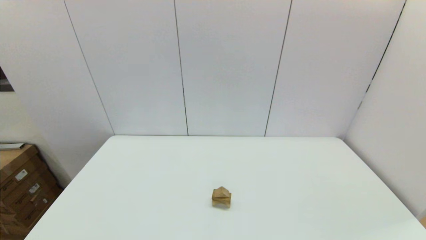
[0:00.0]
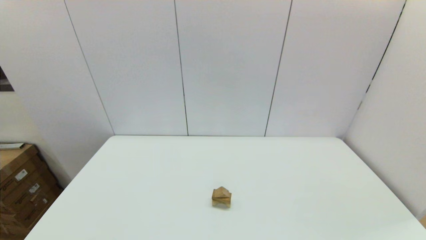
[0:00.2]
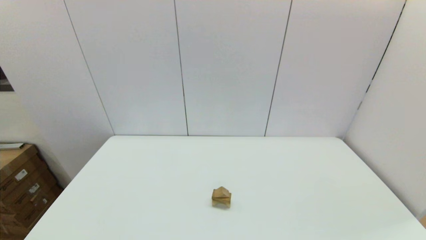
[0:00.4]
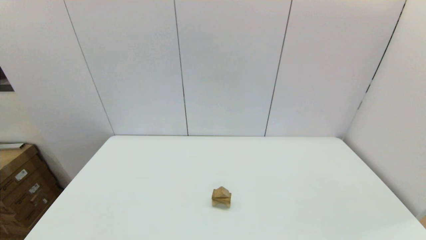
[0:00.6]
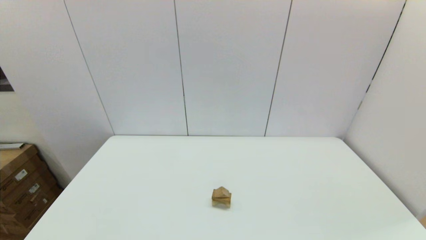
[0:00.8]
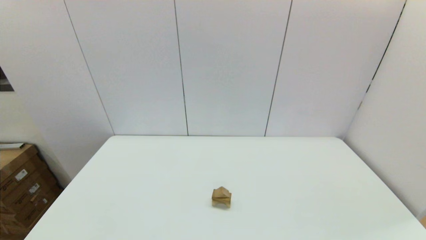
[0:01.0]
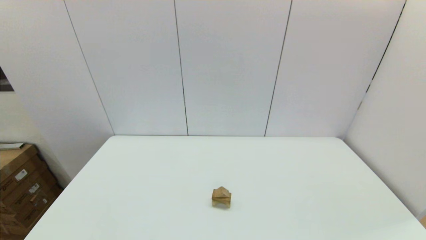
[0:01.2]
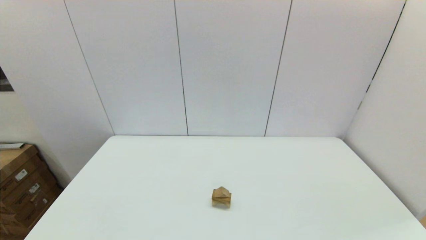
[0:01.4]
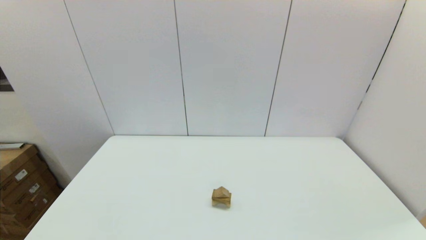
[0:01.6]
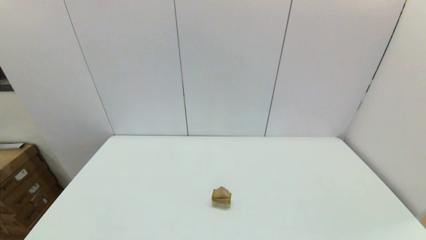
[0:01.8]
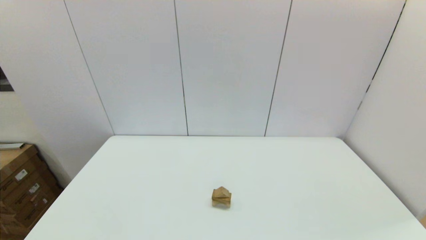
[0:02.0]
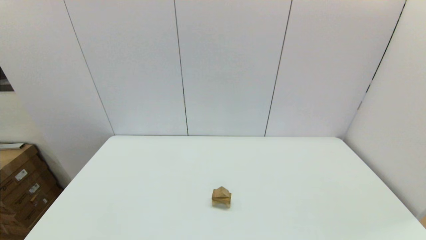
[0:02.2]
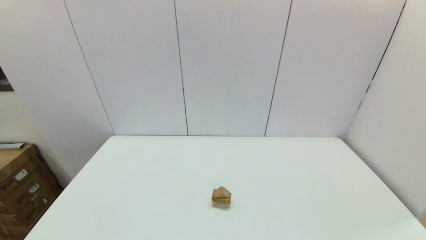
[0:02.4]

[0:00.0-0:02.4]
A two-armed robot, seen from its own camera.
Task of the whole recording: place the arched building blocks in the center of the table, set up the rectangular building blocks, and then set up the triangular building blocks.
0:01.2 to 0:02.4: Both grippers stay about where they are.

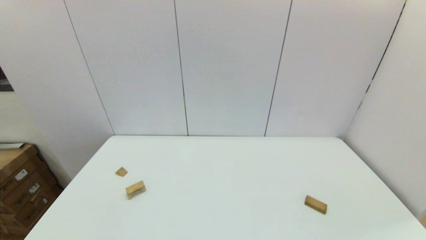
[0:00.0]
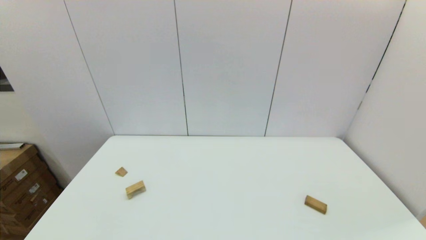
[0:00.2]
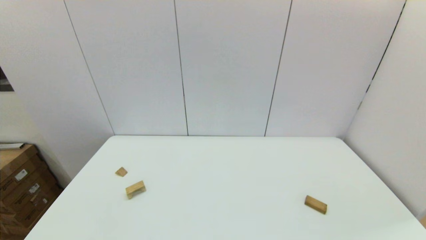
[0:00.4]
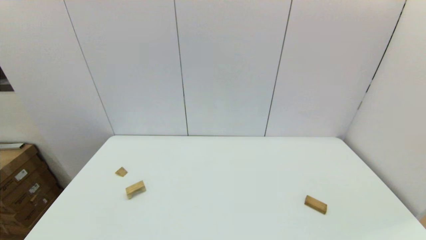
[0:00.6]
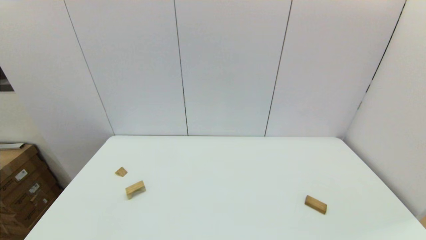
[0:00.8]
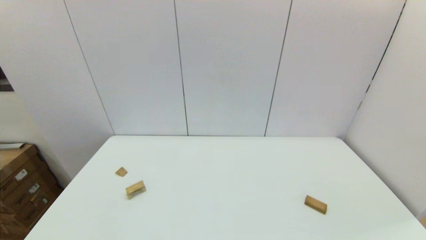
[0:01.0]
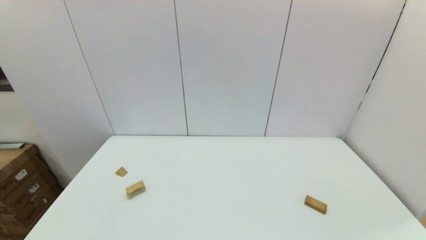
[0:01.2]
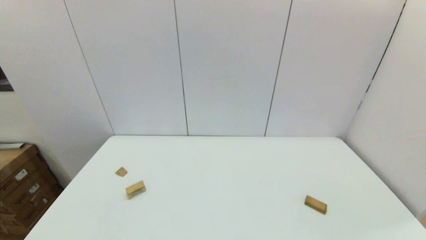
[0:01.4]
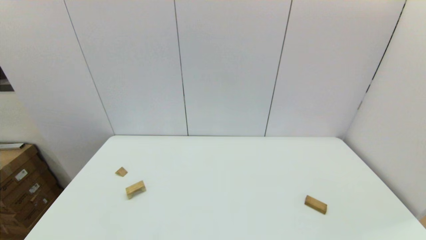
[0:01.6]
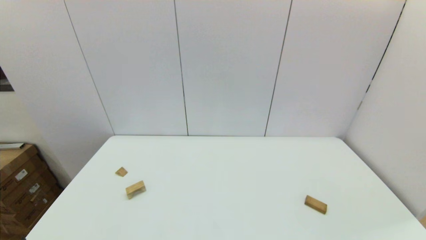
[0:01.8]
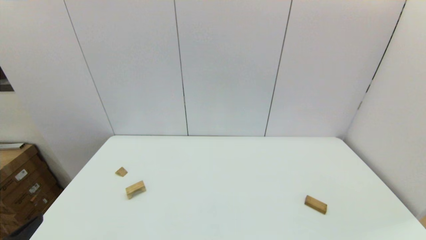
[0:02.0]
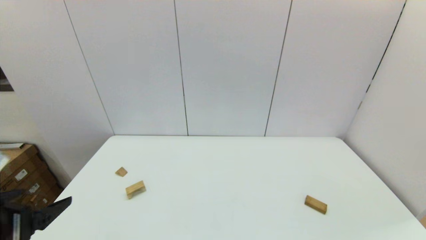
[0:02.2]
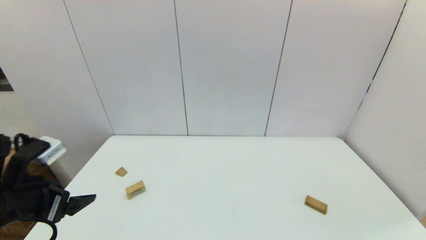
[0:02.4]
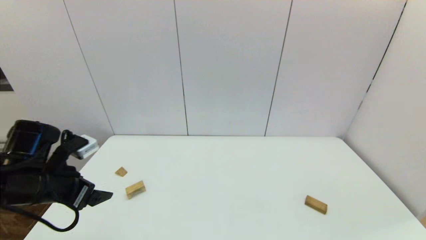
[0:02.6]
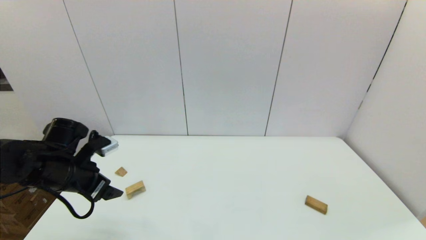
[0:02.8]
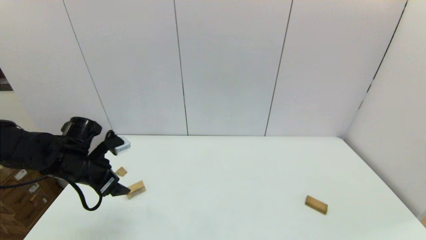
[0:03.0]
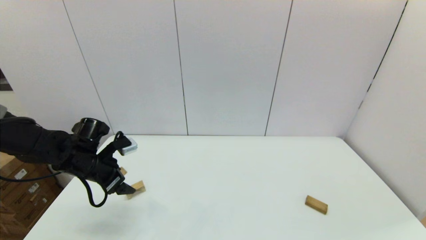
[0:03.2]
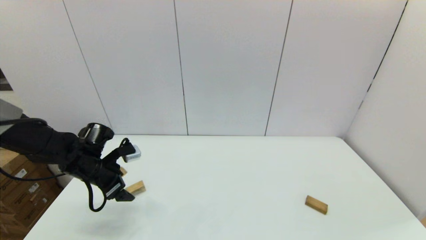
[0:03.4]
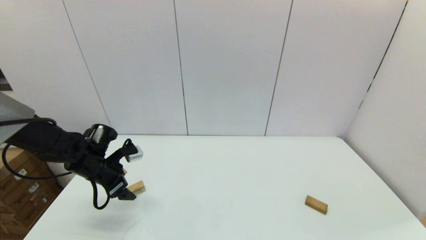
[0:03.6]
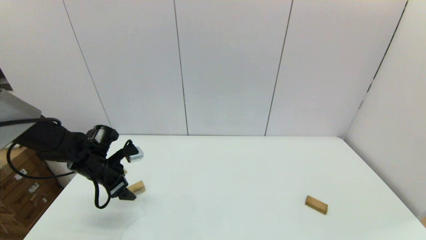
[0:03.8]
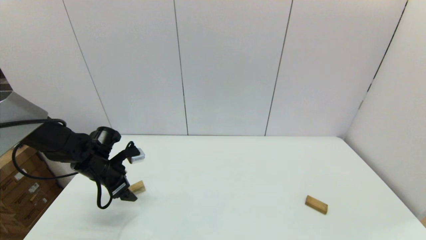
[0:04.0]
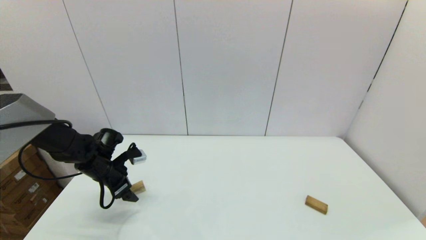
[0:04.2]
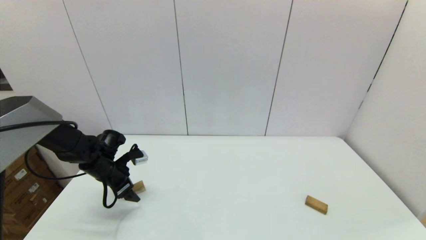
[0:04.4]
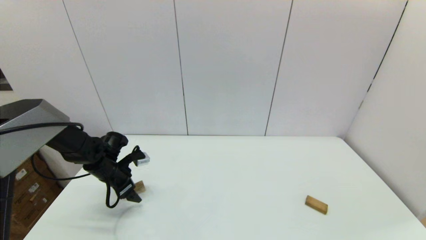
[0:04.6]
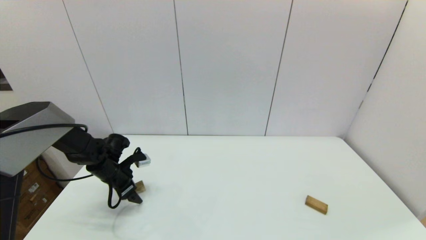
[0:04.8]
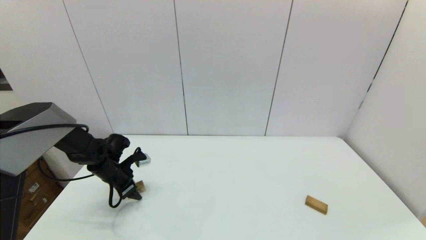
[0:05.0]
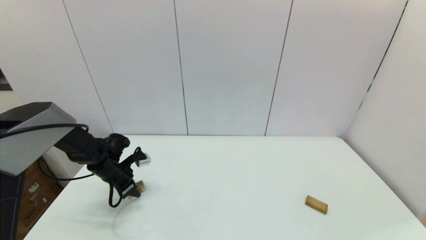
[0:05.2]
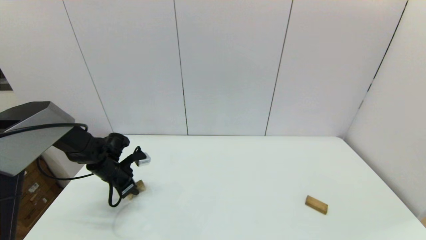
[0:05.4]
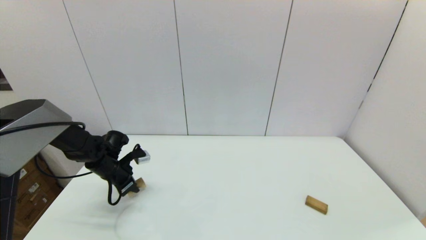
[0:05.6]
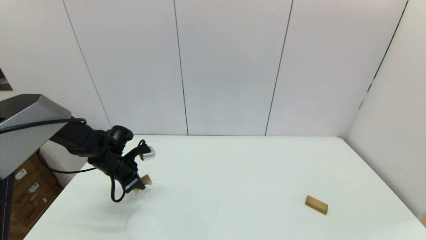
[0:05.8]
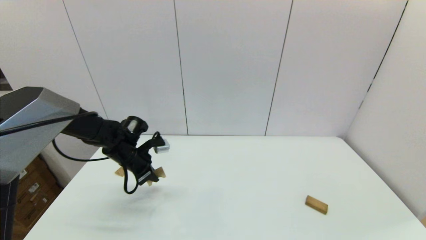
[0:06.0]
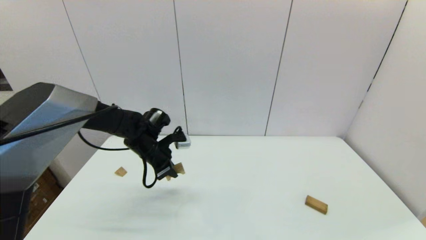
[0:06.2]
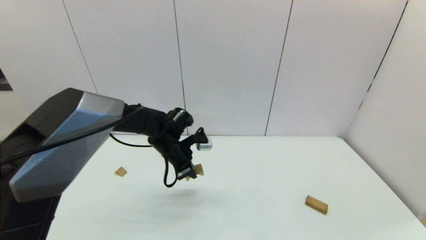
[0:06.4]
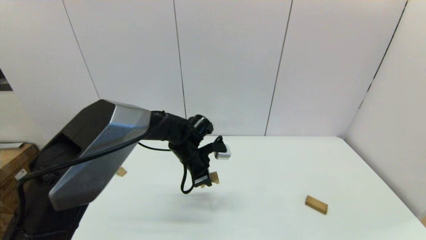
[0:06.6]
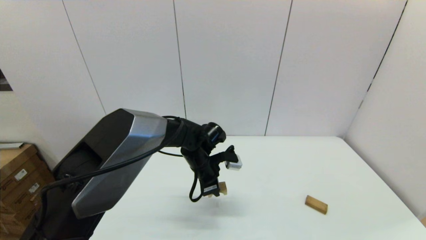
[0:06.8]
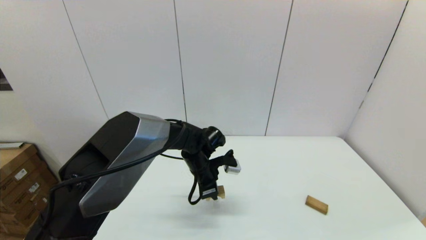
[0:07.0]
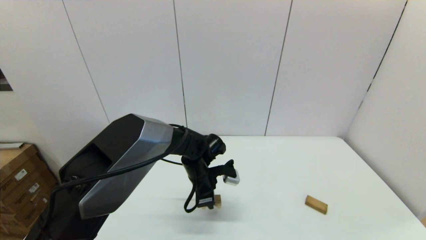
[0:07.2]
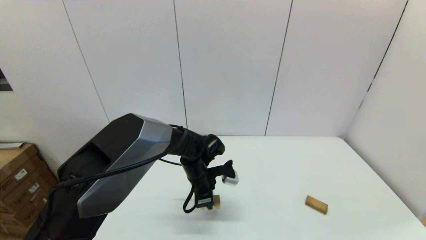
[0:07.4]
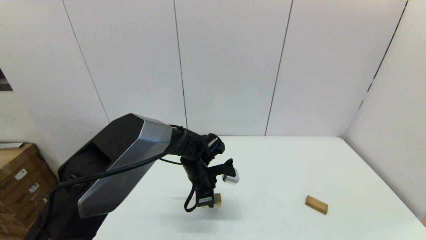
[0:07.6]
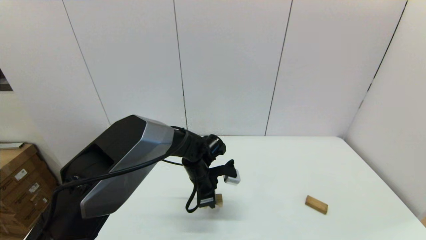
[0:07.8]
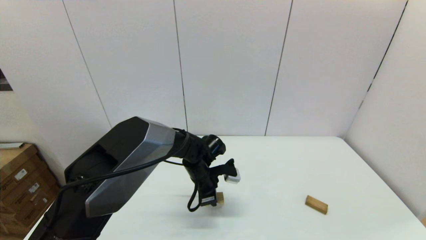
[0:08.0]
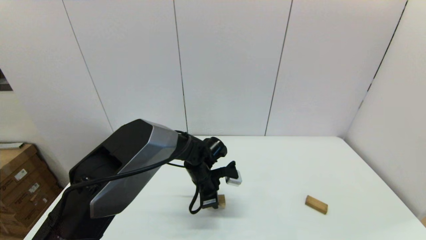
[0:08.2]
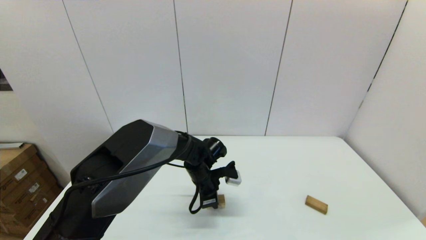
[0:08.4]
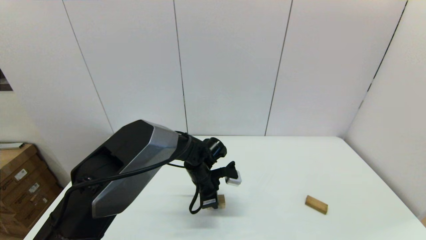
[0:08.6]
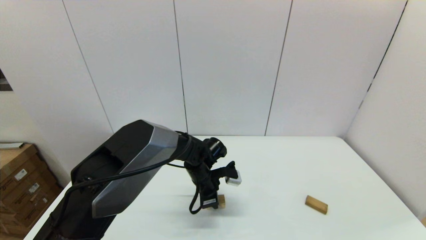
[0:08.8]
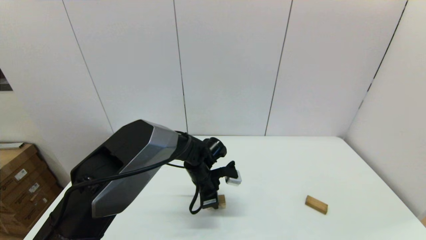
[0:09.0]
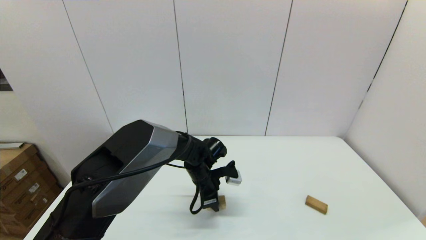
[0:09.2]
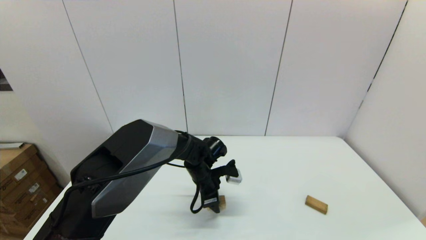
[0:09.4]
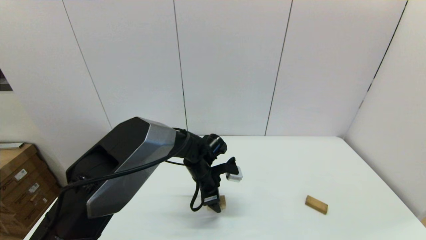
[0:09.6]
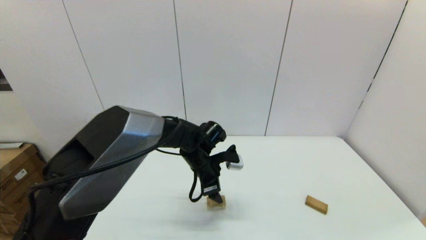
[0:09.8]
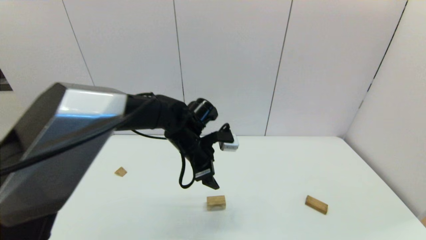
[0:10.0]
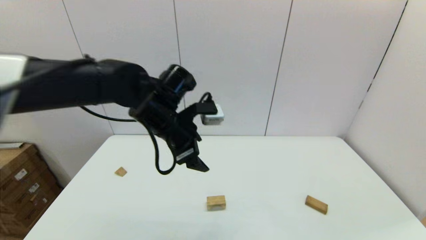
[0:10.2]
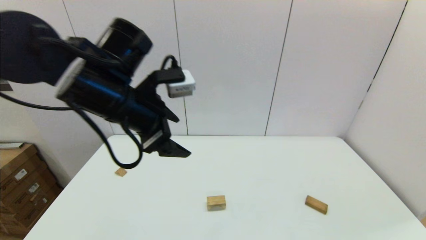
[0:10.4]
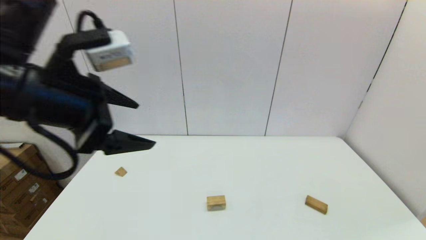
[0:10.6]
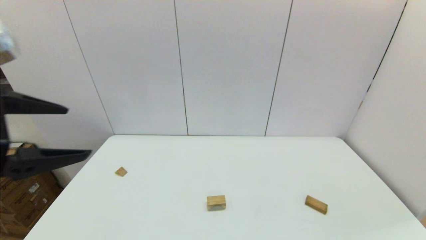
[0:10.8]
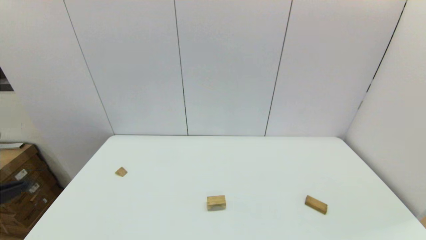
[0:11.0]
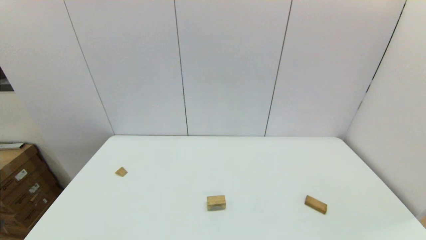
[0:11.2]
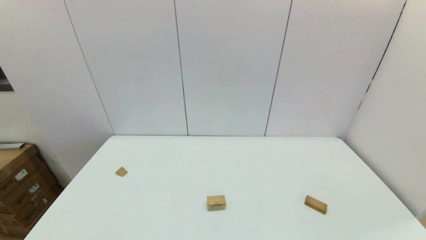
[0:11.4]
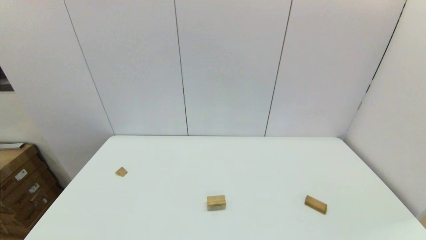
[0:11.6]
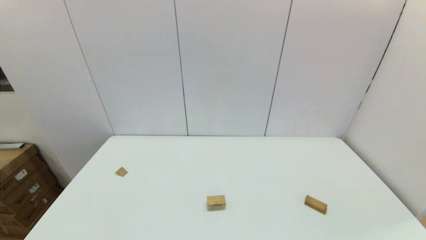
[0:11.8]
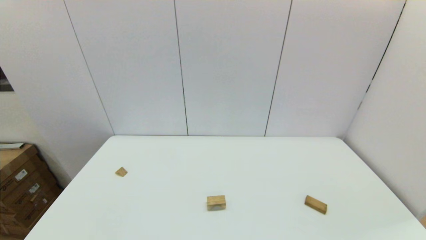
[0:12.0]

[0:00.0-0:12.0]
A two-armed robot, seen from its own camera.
Task of the whole recording: place the arched building blocks in the center of the table, set up the rectangular building blocks, and then set up the triangular building blocks.
Step, 0:02.0 to 0:05.2: Grasp the arch-shaped block with the left gripper.
Step, 0:05.6 to 0:09.2: Place the arch-shaped block in the center of view with the left gripper.
0:01.6 to 0:03.0: The left gripper travels forward by approximately 30 cm.
0:03.0 to 0:04.4: The left gripper heads downward and forward, covering roughly 10 cm.
0:04.4 to 0:06.0: The left gripper shifts approximately 10 cm to the right, and closes its fingers.
0:06.0 to 0:07.6: The left gripper is displaced to the right by roughly 20 cm.
0:07.6 to 0:09.0: The grippers make only small movements.
0:09.0 to 0:10.4: The left gripper shifts some 30 cm upward and to the left, and opens up.
0:10.4 to 0:12.0: The left gripper shifts approximately 35 cm backward, downward and to the left.

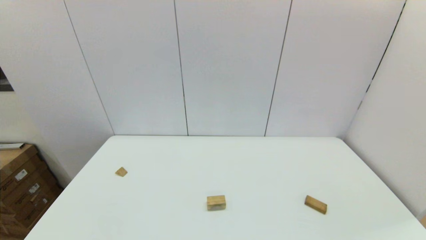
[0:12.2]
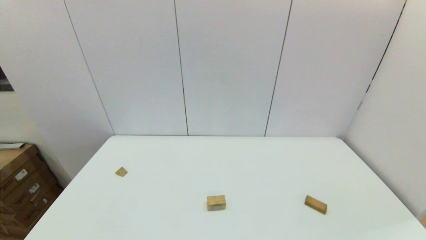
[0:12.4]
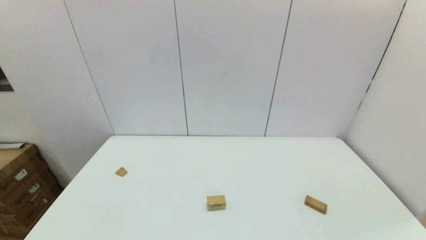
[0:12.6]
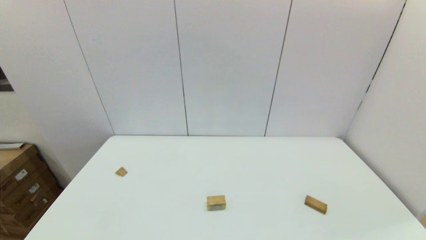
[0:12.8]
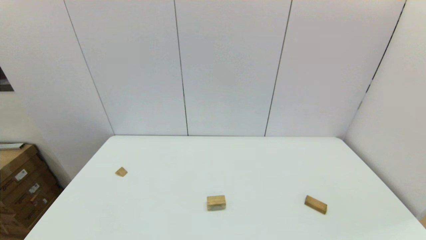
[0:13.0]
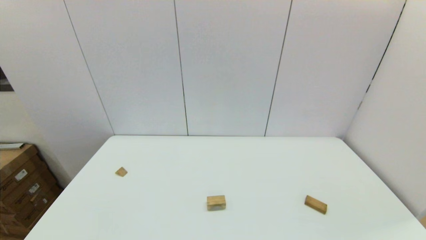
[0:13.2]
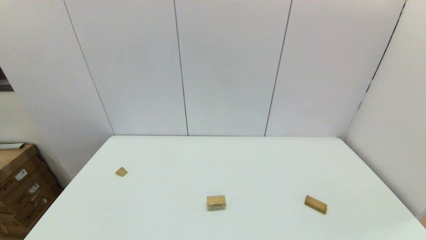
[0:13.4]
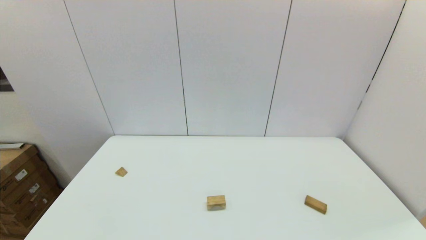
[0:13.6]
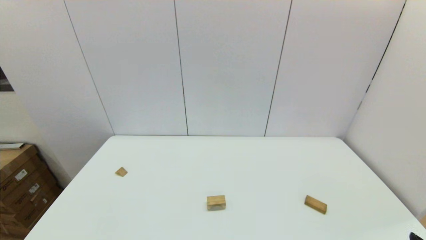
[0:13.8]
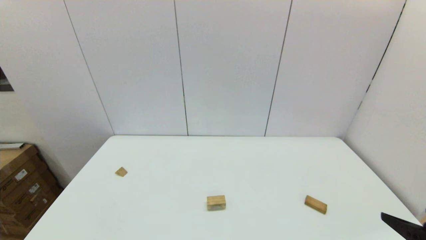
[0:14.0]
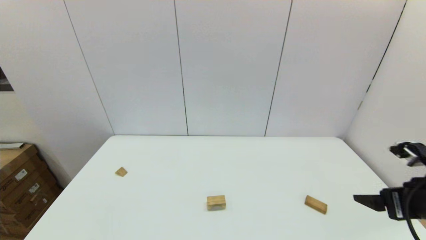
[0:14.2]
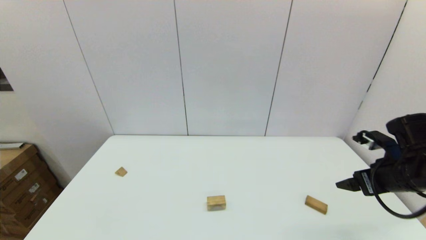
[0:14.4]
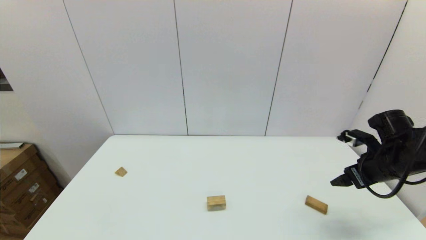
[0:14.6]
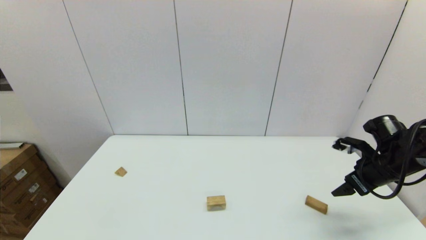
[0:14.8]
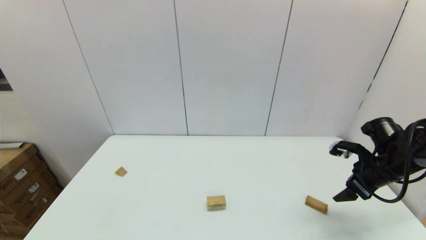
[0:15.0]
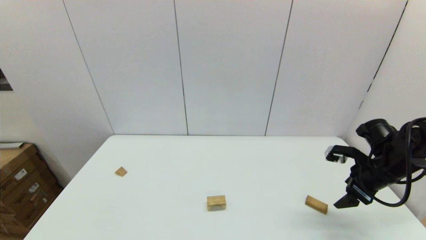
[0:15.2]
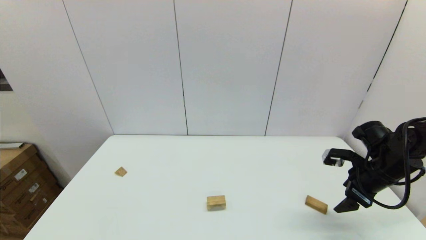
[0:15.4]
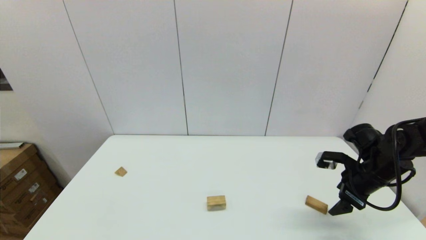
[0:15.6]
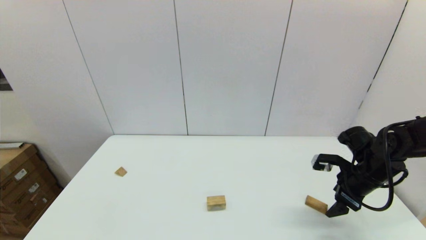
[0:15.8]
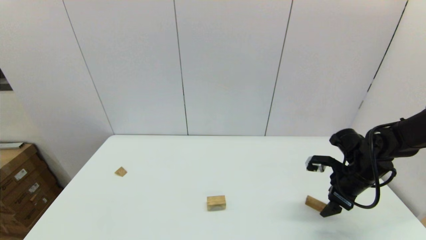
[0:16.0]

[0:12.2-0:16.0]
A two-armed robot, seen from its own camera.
Task of the whole recording: place the arched building blocks in the center of the table, set up the rectangular building blocks, and then set up the triangular building blocks.
0:13.4 to 0:14.8: The right gripper travels forward by some 30 cm.
0:14.8 to 0:16.0: The right gripper shifts by approximately 5 cm.
